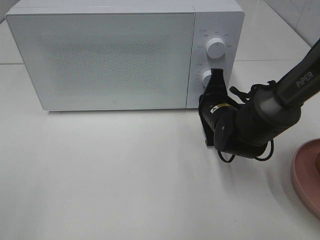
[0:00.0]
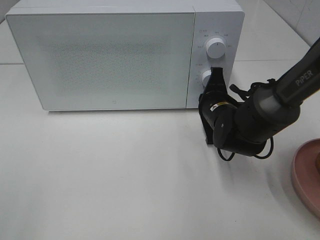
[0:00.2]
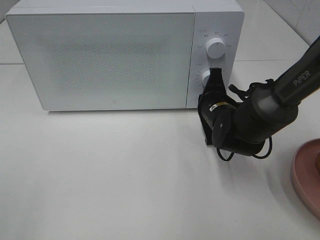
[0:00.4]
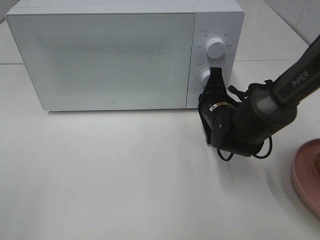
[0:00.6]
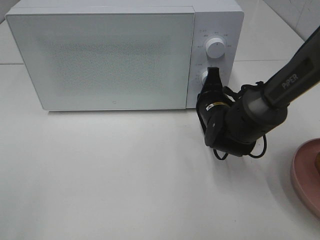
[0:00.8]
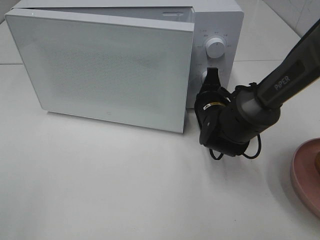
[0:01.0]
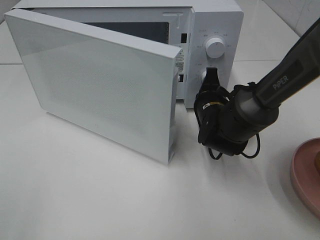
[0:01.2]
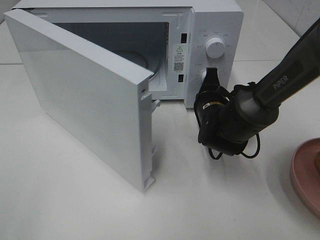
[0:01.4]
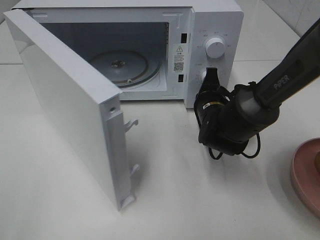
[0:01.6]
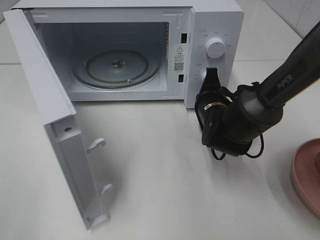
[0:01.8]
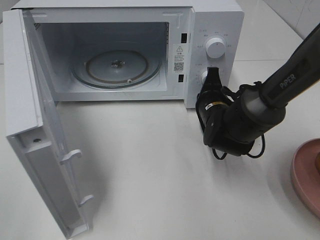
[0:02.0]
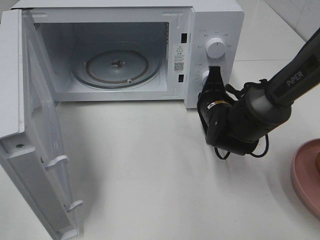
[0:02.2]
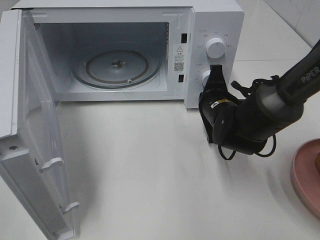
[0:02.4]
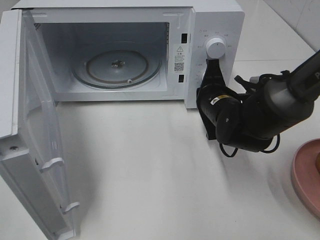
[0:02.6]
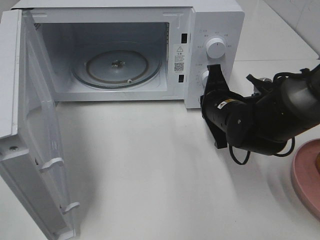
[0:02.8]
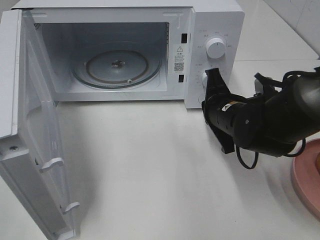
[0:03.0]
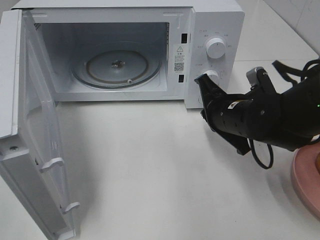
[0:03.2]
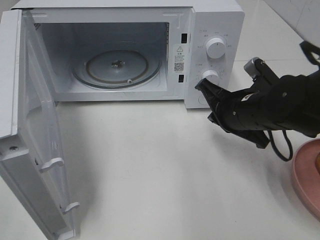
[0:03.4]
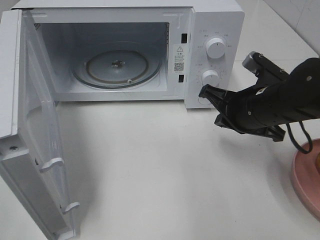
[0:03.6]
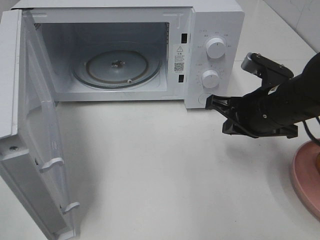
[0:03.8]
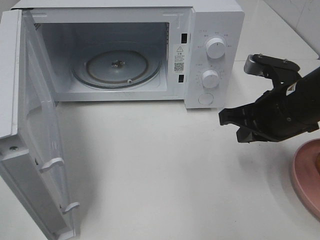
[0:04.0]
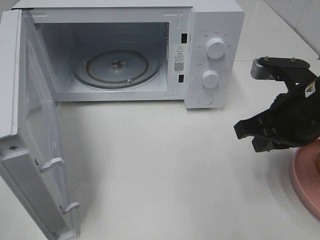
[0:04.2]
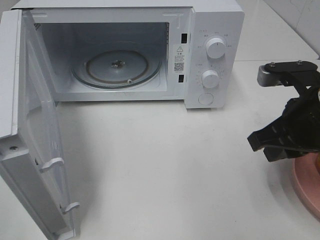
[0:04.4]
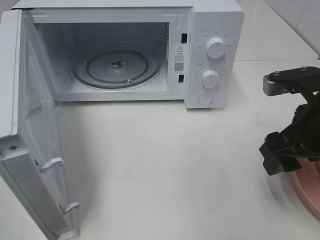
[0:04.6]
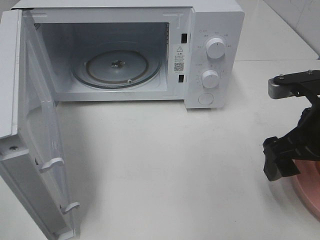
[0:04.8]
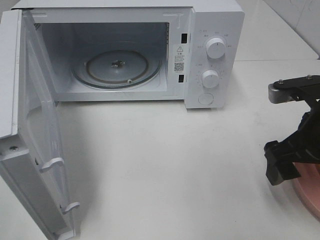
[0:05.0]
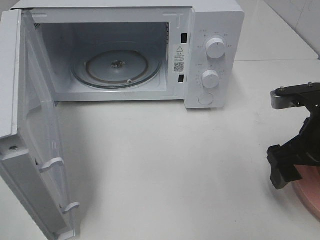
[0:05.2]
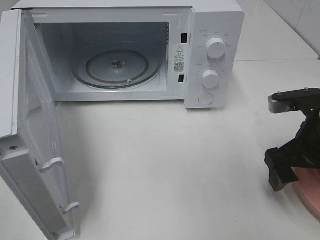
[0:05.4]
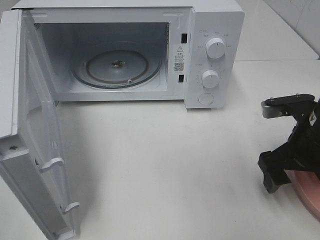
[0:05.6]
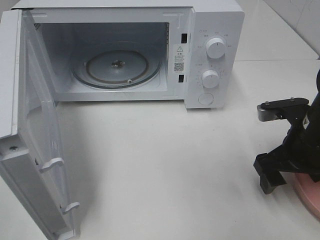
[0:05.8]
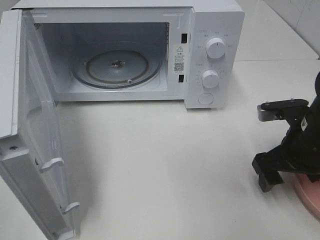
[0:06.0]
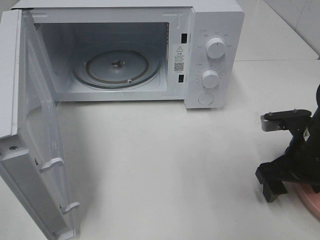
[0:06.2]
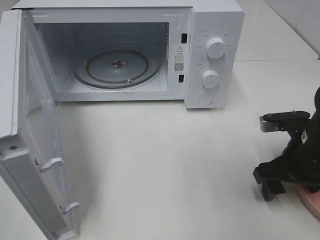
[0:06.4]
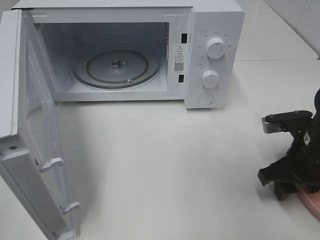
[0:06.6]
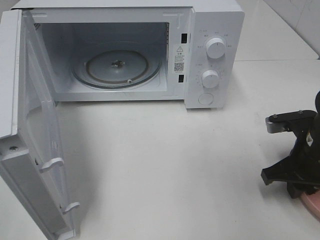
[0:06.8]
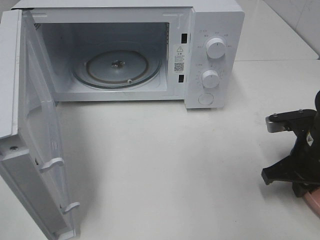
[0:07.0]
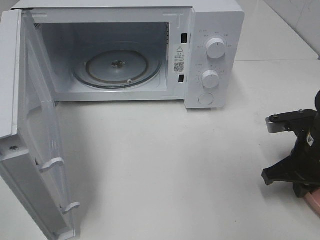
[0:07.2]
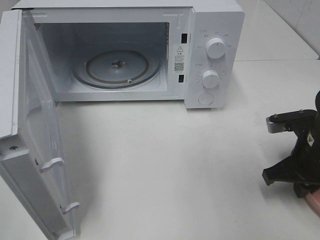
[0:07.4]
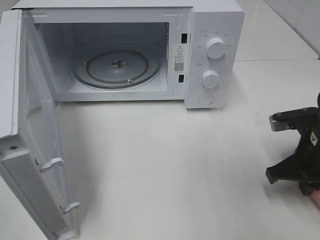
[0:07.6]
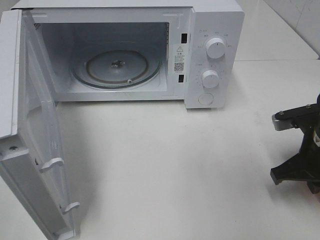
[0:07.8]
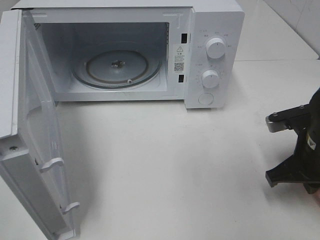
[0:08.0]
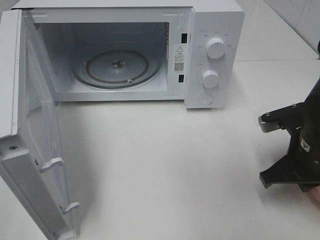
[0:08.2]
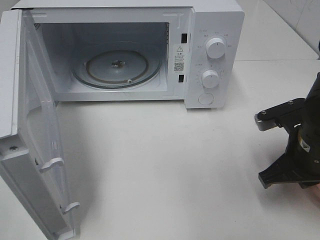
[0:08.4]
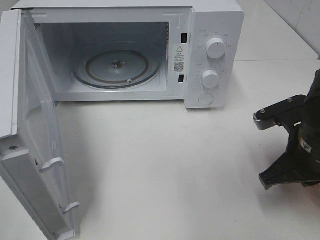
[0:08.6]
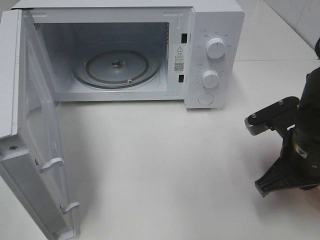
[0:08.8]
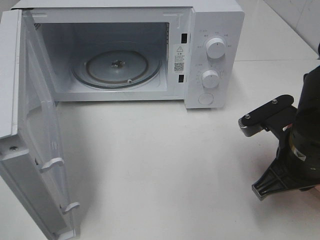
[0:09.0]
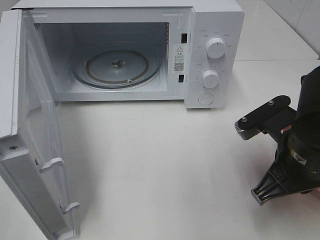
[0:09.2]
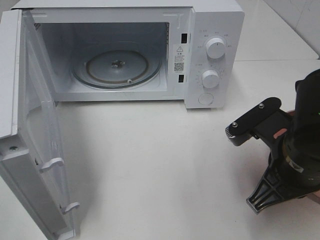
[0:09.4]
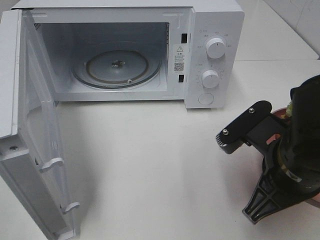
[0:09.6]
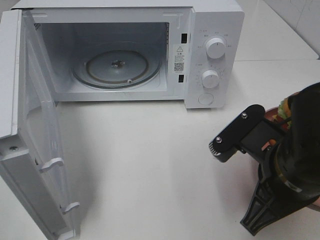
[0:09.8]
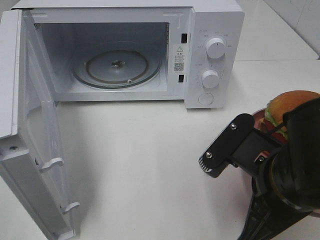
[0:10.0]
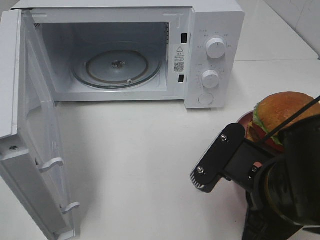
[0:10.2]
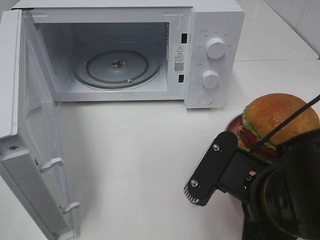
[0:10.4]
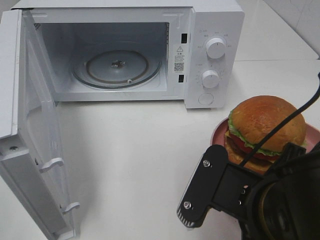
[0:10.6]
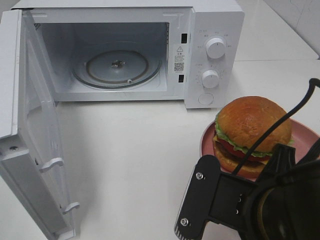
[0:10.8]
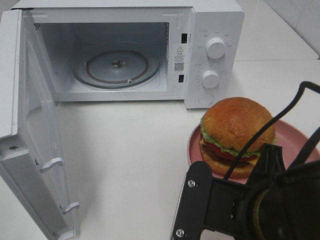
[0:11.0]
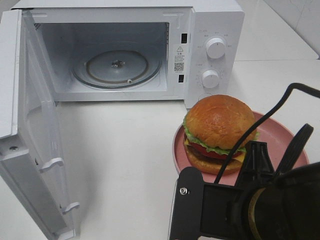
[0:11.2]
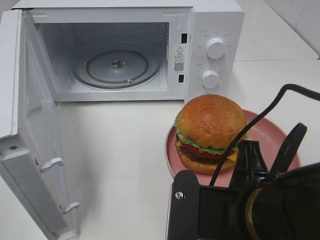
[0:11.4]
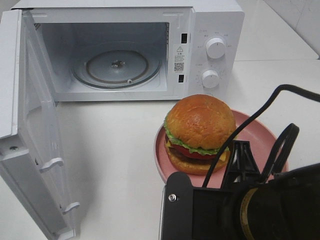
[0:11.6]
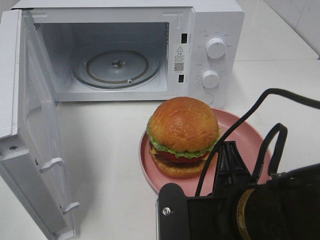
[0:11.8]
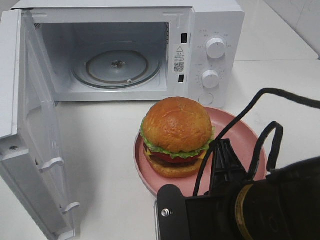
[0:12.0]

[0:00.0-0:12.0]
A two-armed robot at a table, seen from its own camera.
Task of the whole recording: Heat the burger.
Step, 0:00.0 to 0:02.4: Right hand: press the switch.
Step, 0:02.6 to 0:07.2: Right hand: grab the plate with the hamburger.
0:01.6 to 0:03.0: The right gripper heads backward, covering some 5 cm.
0:03.0 to 0:04.4: The right gripper heads upward, backward and to the right, covering about 15 cm.
0:04.4 to 0:06.0: The right gripper heads downward, covering some 10 cm, and opens its fingers.
0:06.0 to 0:07.6: The right gripper closes up.
0:07.6 to 0:09.0: The right gripper moves to the left, approximately 5 cm.
0:09.0 to 0:10.4: The right gripper heads backward and to the left, covering about 10 cm.

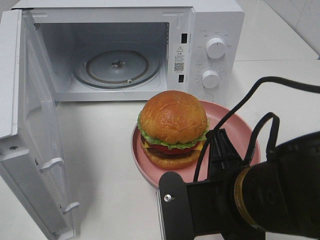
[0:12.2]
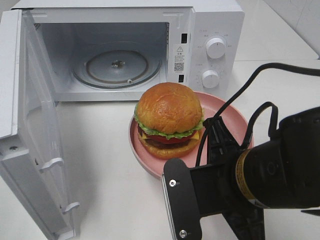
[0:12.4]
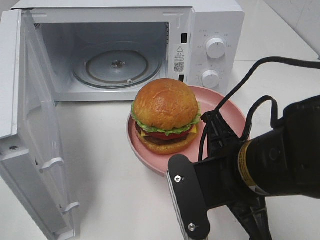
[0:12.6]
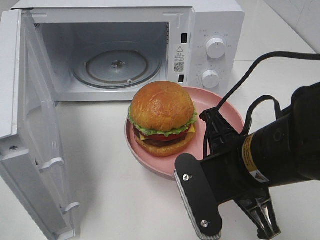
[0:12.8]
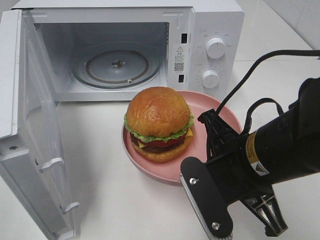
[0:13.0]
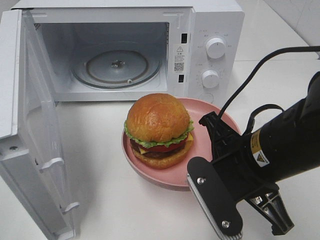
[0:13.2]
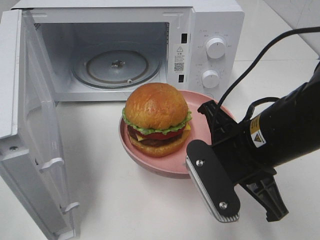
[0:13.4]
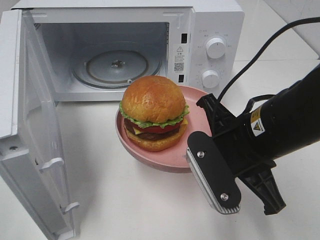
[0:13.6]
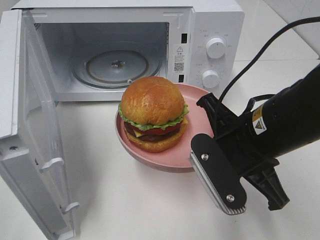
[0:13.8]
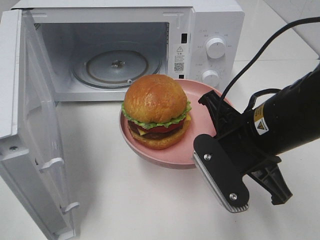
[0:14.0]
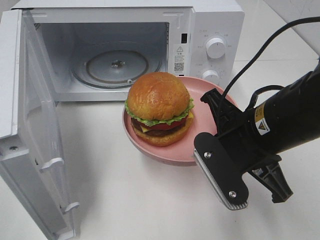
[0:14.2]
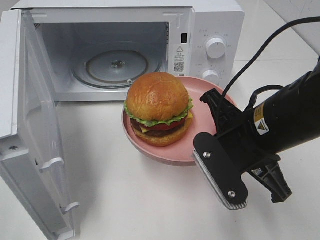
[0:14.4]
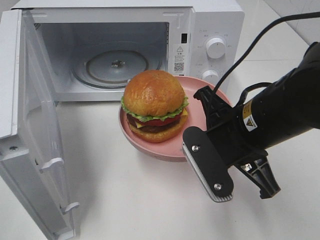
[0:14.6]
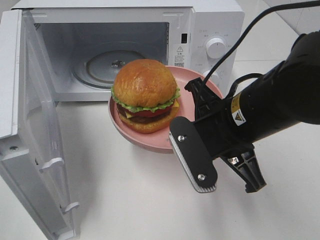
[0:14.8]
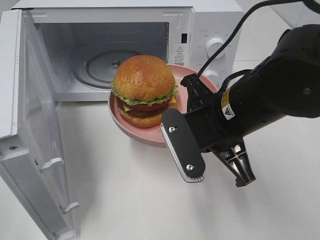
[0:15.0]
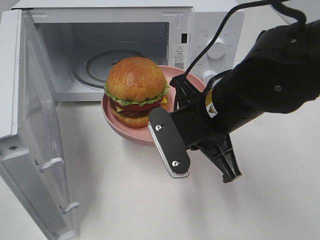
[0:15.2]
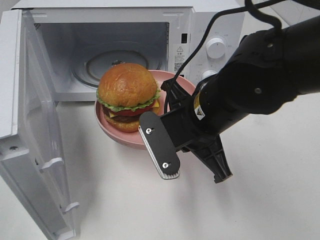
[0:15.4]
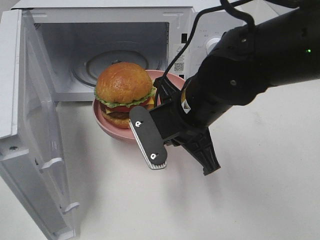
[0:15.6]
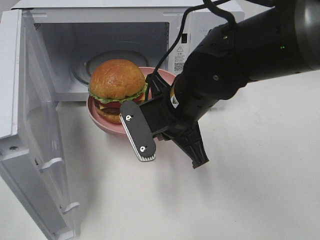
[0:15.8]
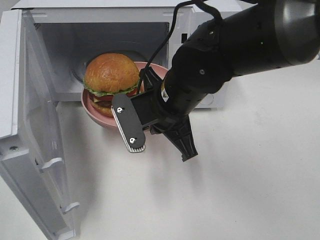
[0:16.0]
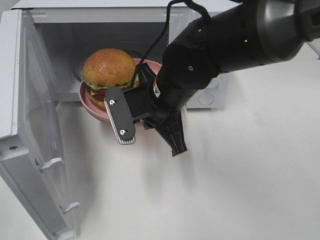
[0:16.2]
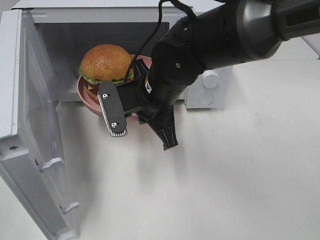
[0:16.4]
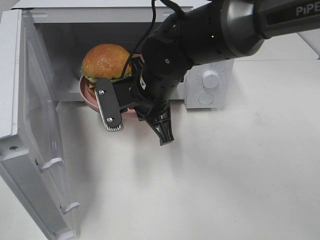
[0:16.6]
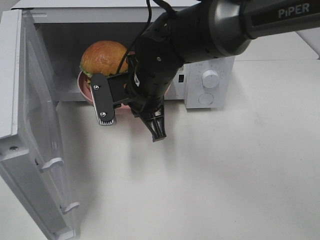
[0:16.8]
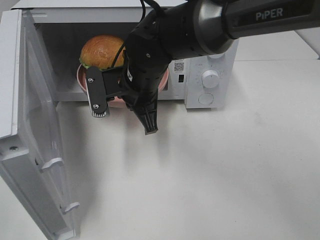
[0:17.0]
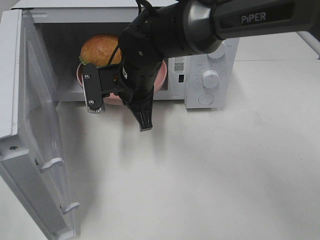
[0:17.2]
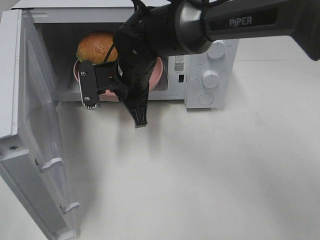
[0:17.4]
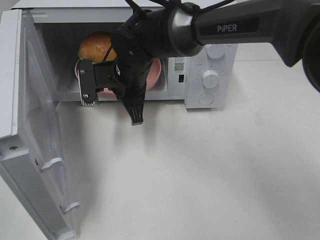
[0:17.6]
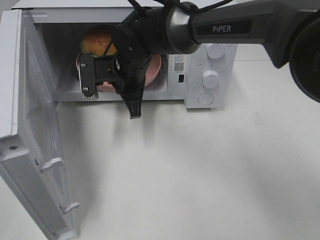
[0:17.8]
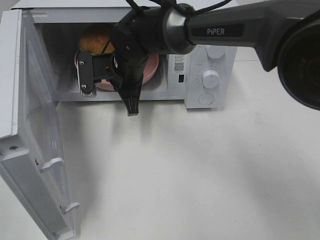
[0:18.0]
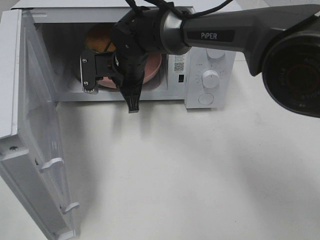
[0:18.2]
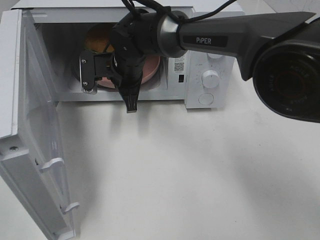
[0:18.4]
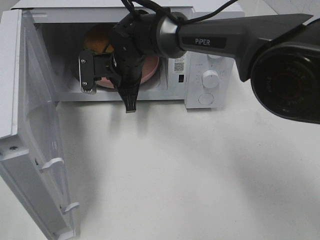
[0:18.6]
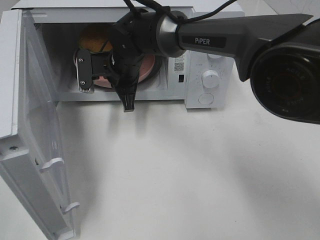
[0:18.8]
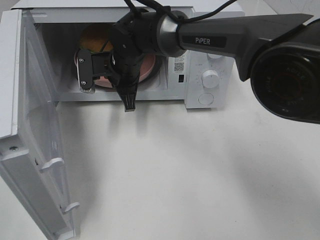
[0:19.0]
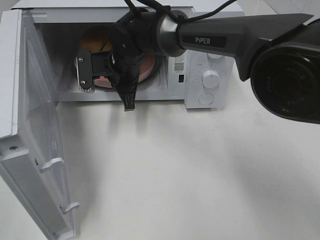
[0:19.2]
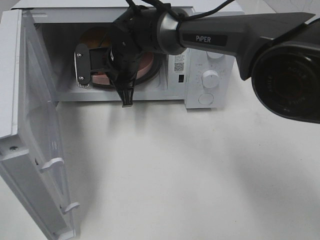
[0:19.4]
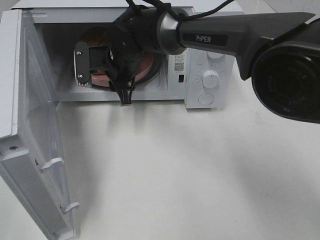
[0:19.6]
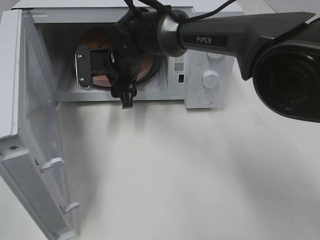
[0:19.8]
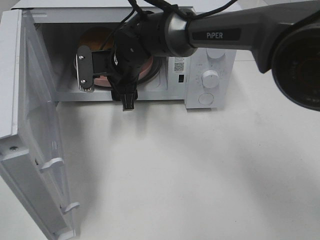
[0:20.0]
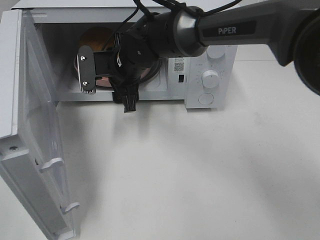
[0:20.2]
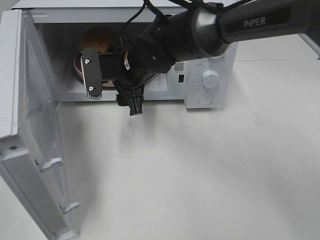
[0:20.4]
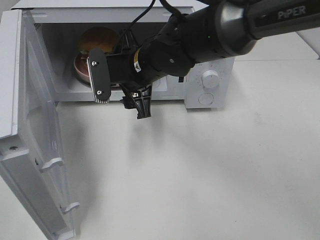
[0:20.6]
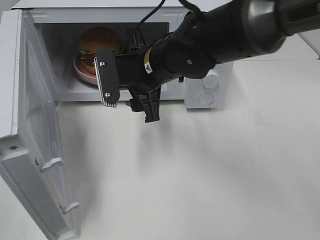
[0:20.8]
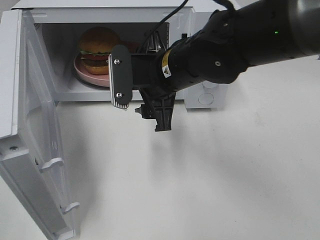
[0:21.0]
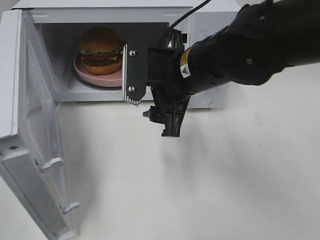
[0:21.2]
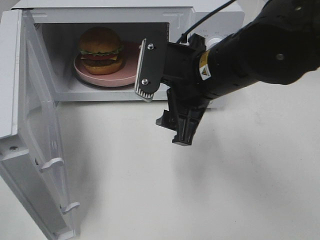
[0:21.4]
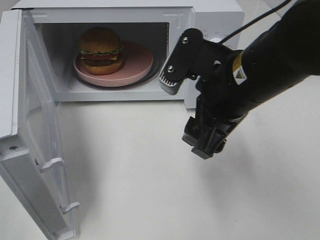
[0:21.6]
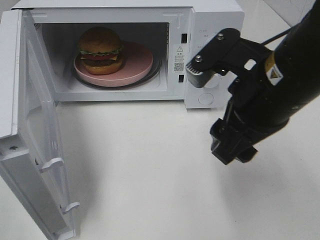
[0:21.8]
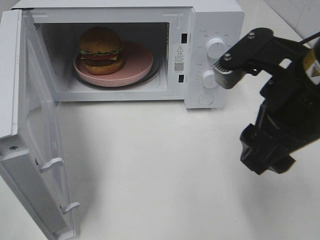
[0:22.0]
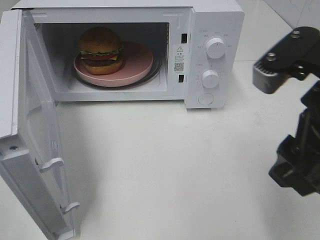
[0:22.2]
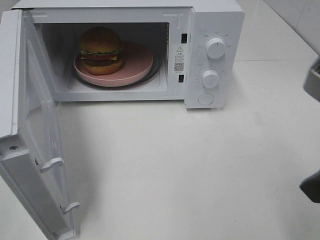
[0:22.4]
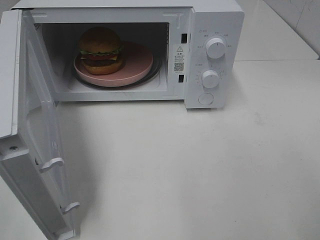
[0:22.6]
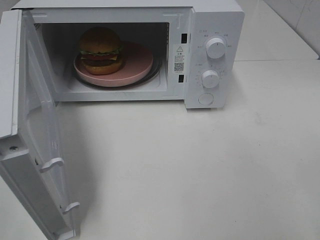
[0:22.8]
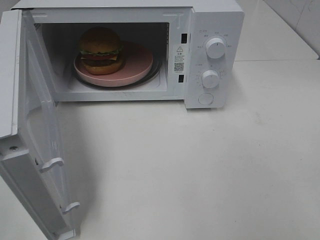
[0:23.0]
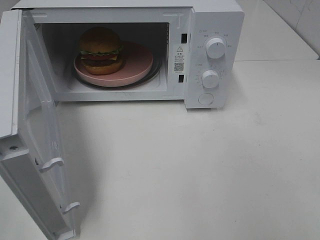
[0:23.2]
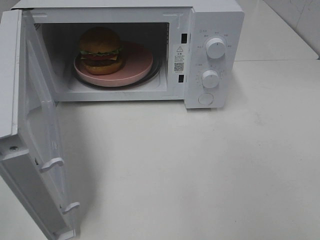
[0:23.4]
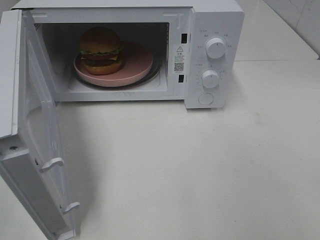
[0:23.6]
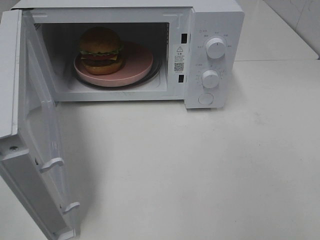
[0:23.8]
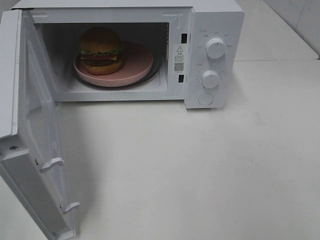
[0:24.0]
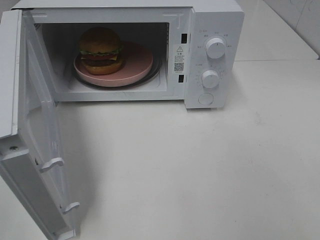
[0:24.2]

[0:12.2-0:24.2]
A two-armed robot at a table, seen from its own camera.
Task of the whole recording: Heat the burger.
Step, 0:12.2 to 0:19.4: Right hand: place the plate in the microwave.
0:12.2 to 0:13.8: The right gripper travels forward by some 10 cm.
0:13.8 to 0:15.2: The right gripper changes place by roughly 5 cm.
0:15.2 to 0:16.6: The right gripper shifts some 10 cm forward and to the left.
0:16.6 to 0:18.2: The right gripper moves forward, approximately 10 cm.
0:18.2 to 0:19.8: The right gripper opens its fingers.
0:19.8 to 0:21.2: The right gripper goes roughly 20 cm backward, to the right and upward.
0:21.2 to 0:22.6: The right gripper heads backward and to the right, covering some 25 cm.
